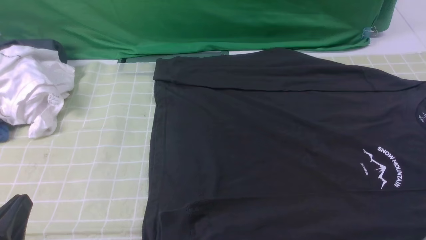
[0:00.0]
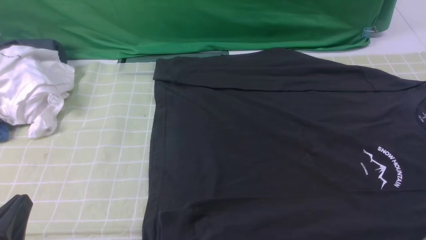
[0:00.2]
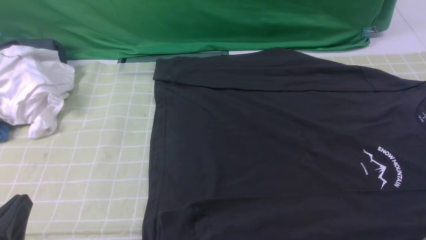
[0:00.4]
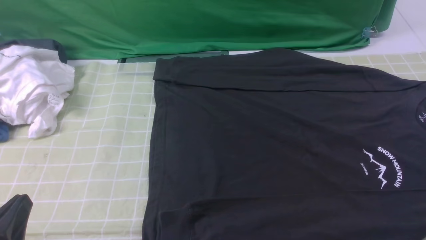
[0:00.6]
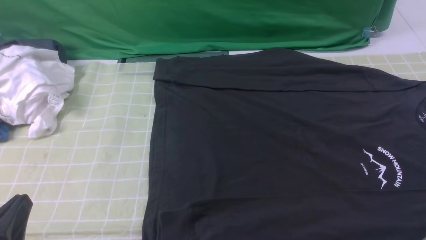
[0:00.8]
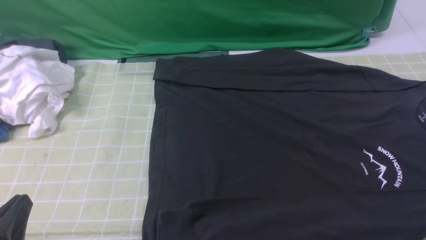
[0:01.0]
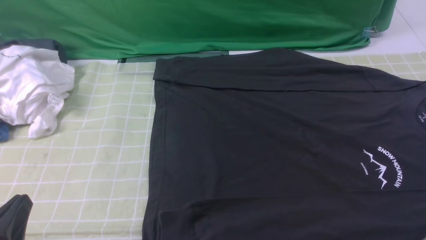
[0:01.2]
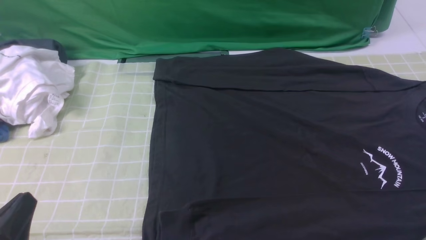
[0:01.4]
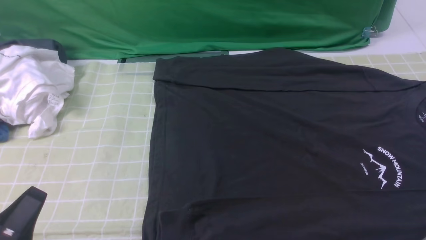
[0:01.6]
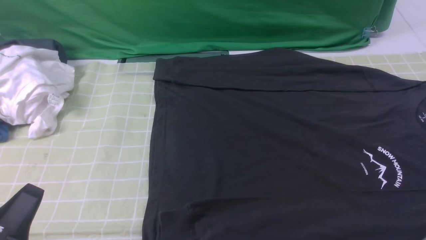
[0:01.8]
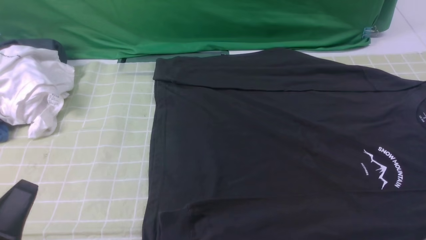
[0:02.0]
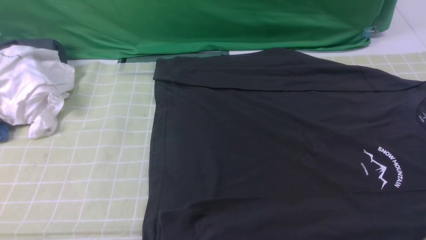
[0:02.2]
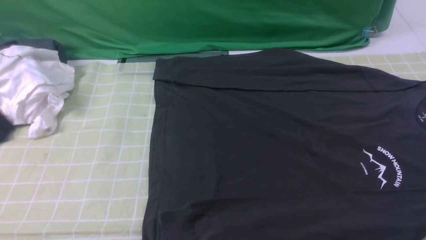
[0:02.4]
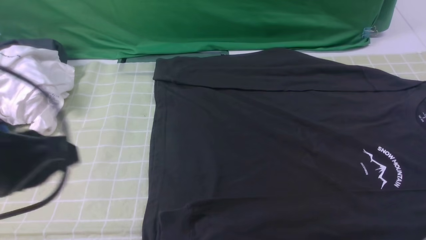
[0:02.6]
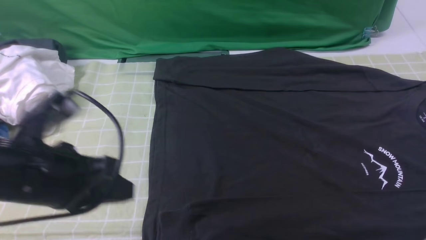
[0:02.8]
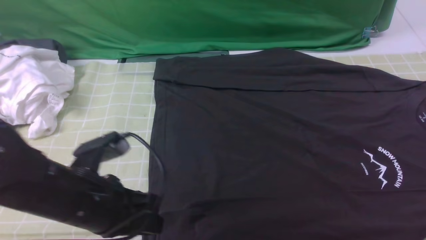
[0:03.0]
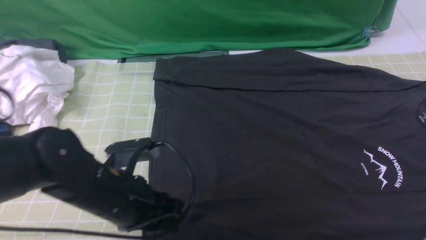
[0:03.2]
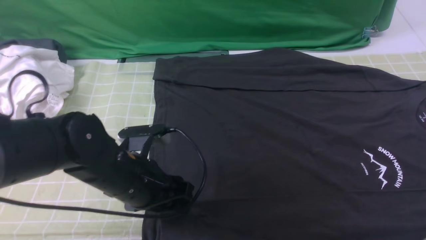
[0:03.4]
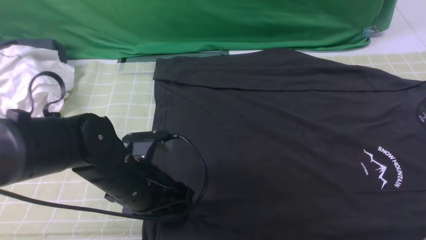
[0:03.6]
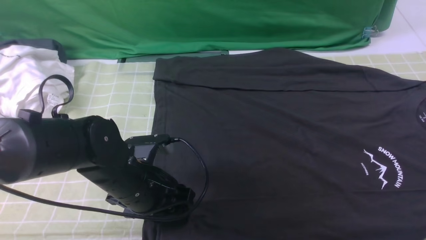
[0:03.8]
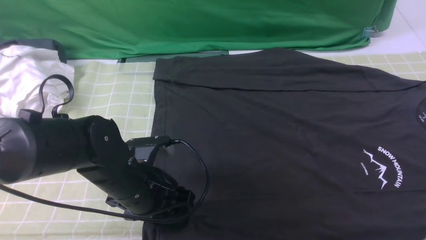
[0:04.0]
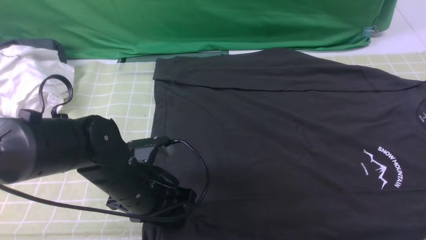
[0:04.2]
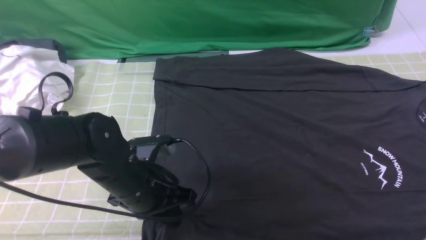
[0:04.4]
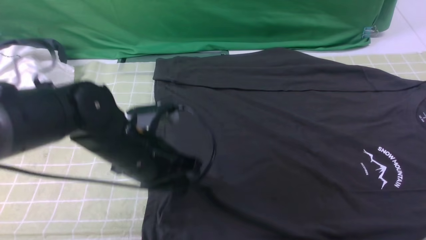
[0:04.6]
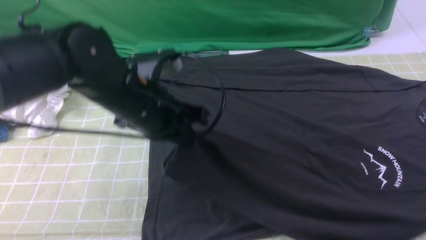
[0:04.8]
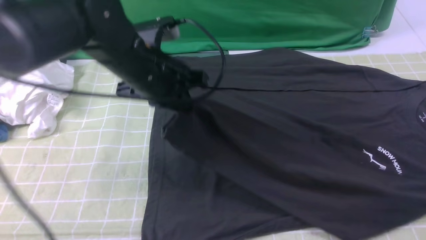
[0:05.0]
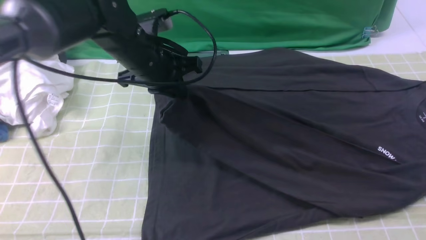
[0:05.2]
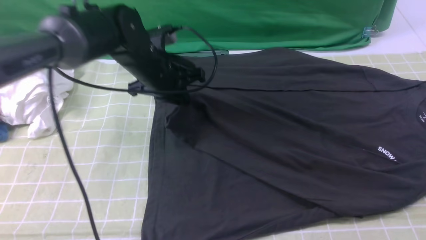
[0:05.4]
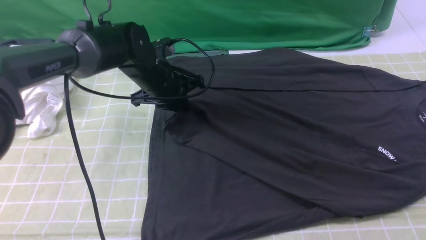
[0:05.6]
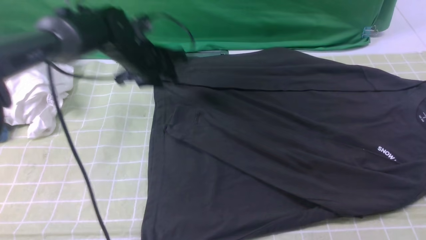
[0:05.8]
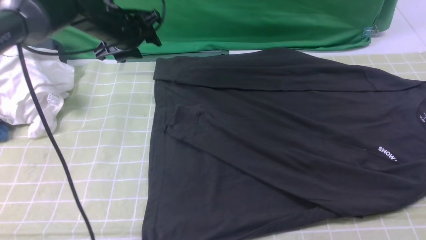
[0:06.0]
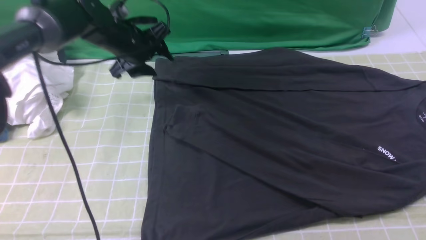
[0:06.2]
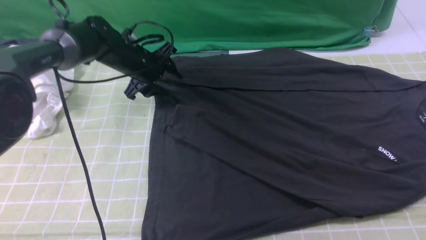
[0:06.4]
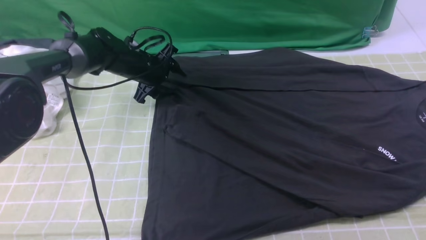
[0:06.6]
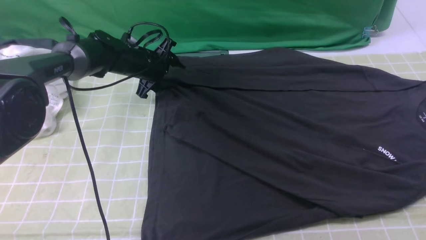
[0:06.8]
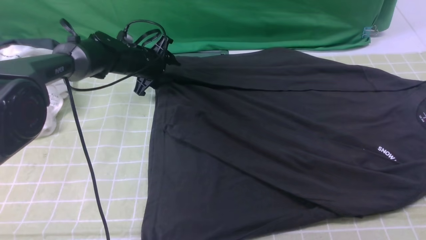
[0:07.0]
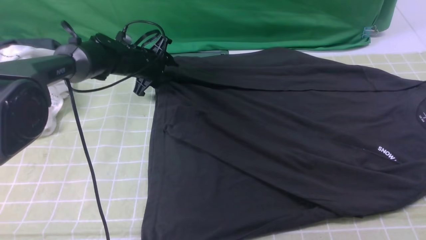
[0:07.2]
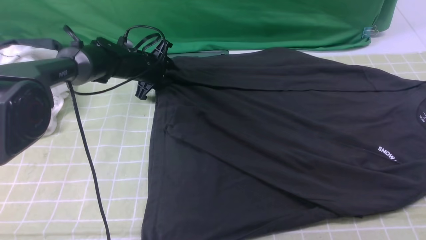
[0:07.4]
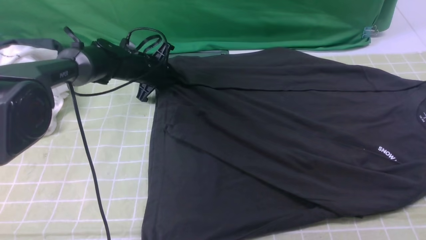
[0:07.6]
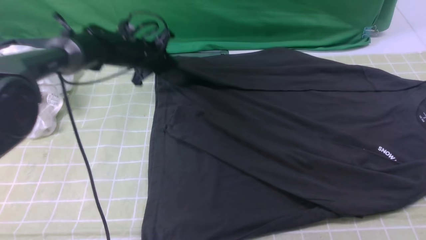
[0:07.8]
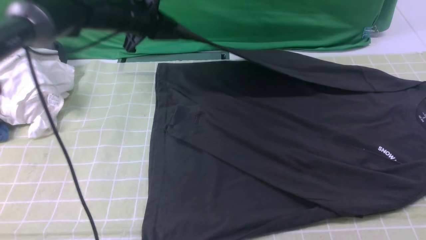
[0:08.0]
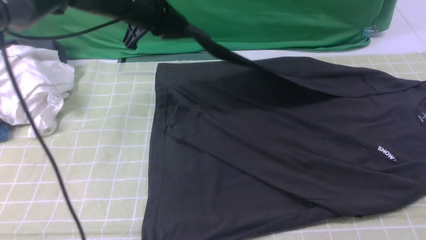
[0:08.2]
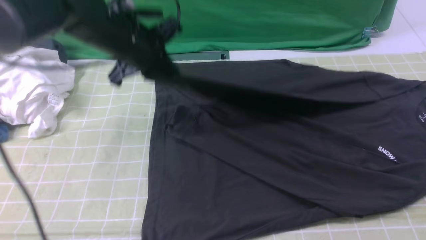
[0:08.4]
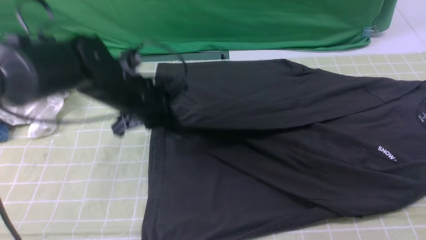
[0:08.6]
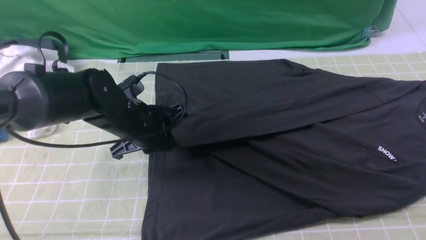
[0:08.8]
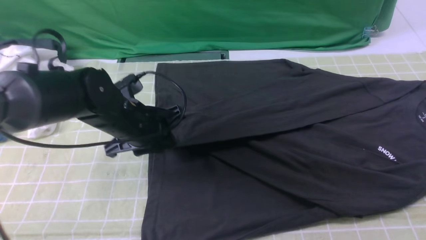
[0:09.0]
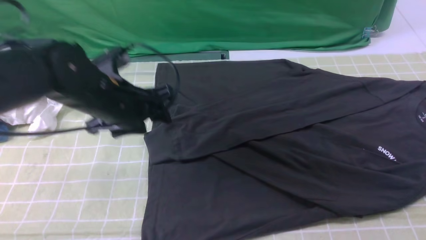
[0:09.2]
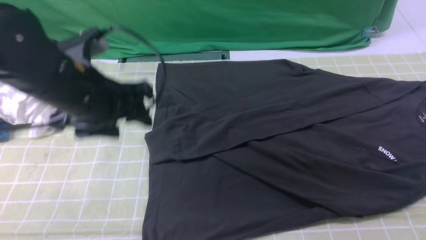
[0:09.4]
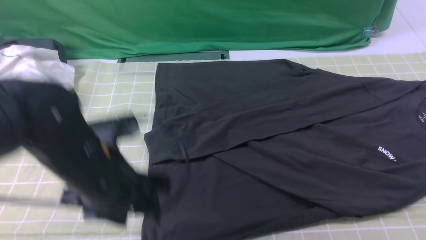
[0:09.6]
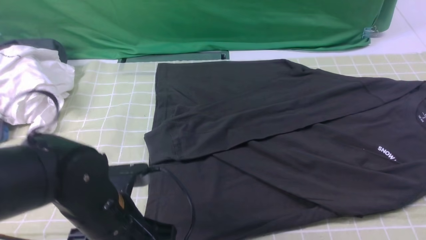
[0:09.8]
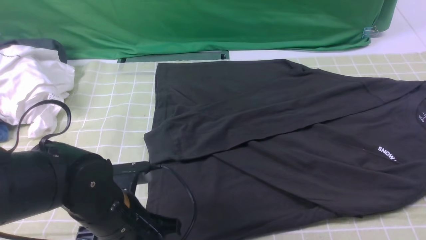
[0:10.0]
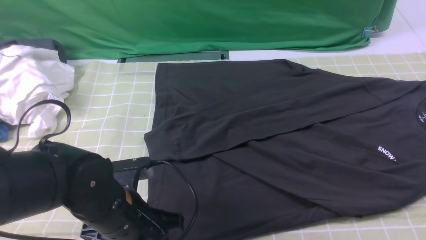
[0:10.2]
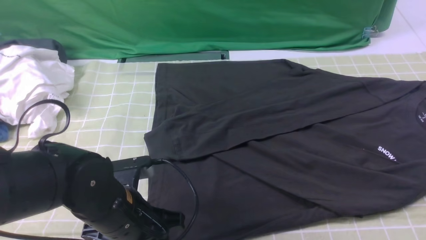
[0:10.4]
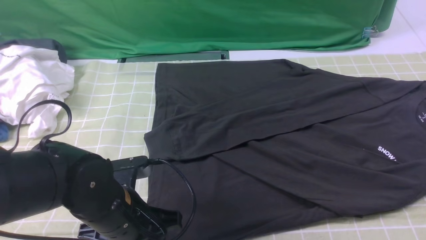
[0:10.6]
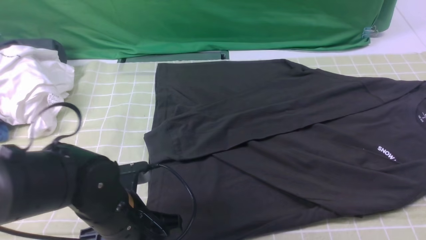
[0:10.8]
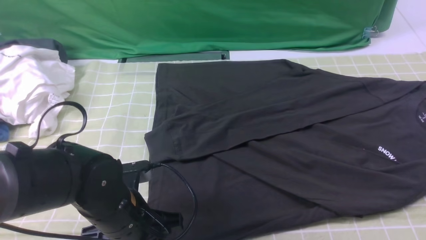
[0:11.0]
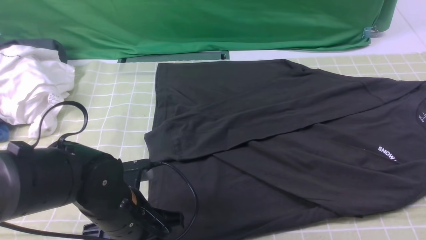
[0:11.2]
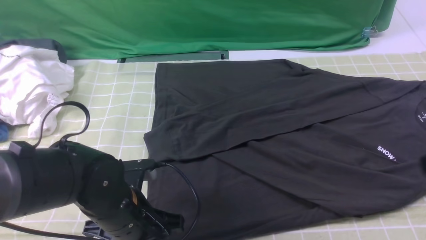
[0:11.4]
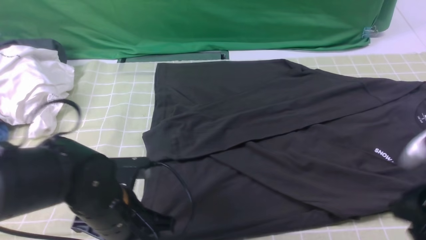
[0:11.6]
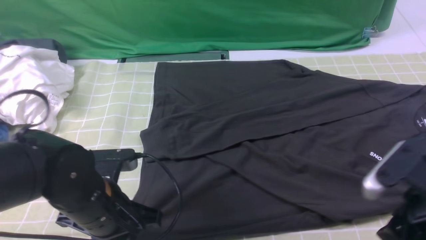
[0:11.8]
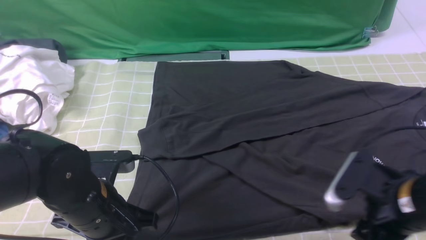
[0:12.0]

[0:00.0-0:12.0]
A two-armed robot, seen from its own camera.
Step, 0:00.0 to 0:04.2: use the left arm to clamp the cuff closest to it.
Step, 0:04.4 to 0:05.6: use the left arm to drag and place the cuff at the centered position on the left edge of the fabric.
Step, 0:05.8 to 0:07.6: use the left arm to clamp the cuff farthest from it.
Step, 0:07.8 to 0:09.0: use the left arm to drag and drop the cuff onto the cuff closest to the left arm.
0:01.6 to 0:03.0: The left gripper shifts roughly 15 cm forward and to the right; the right gripper travels upward and forward by some 15 cm, and closes its fingers.
0:03.0 to 0:04.4: The left gripper moves forward, approximately 5 cm, and opens, then closes again.
0:04.4 to 0:06.0: The left gripper goes approximately 25 cm forward, and opens its fingers.
0:06.0 to 0:07.6: The left gripper is displaced downward by roughly 10 cm, and closes up.
0:07.6 to 0:09.0: The left gripper goes about 20 cm backward.
0:09.0 to 0:10.4: The left gripper shifts some 15 cm backward.
0:10.4 to 0:12.0: The right gripper moves downward and to the left, about 15 cm. The left gripper closes.

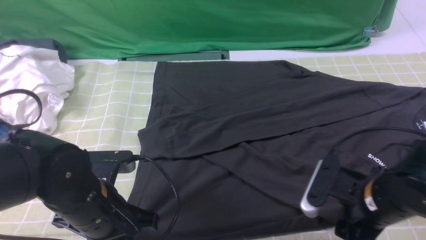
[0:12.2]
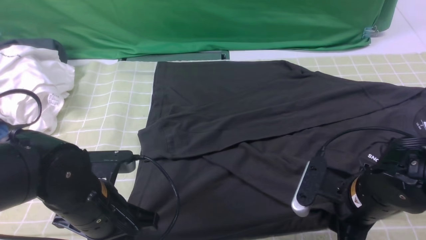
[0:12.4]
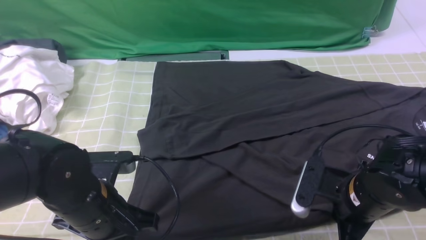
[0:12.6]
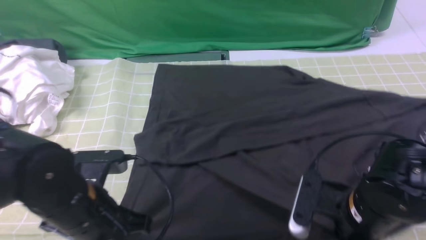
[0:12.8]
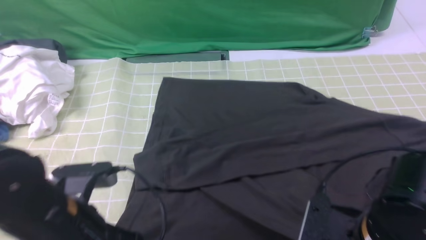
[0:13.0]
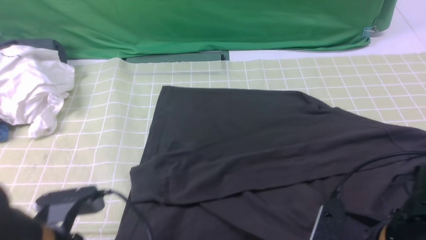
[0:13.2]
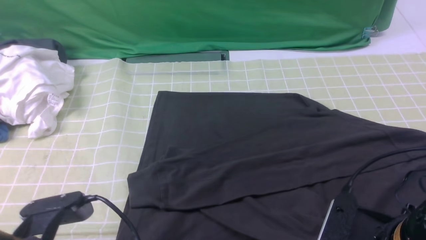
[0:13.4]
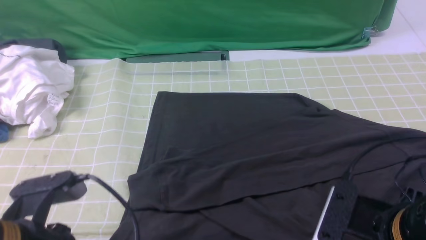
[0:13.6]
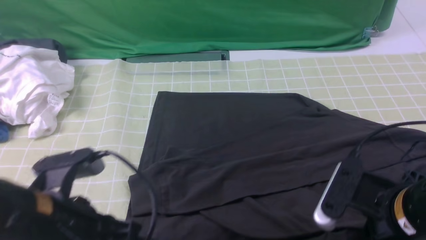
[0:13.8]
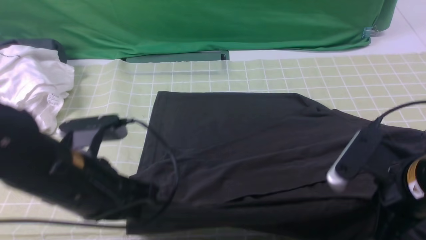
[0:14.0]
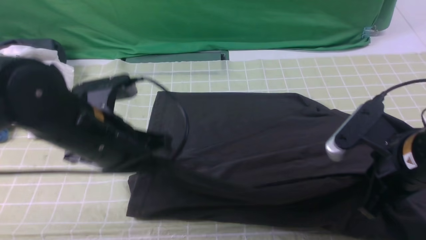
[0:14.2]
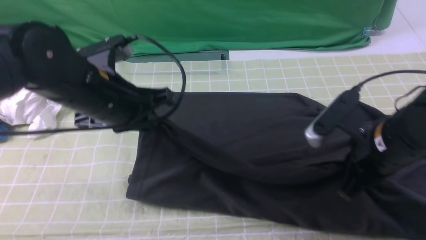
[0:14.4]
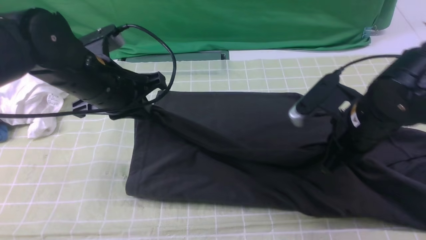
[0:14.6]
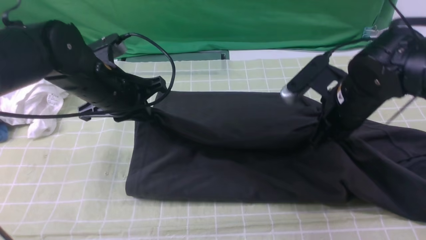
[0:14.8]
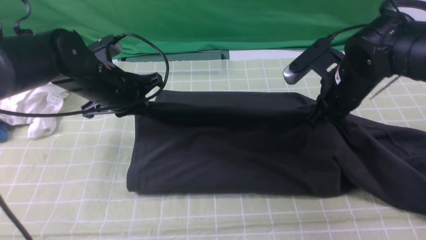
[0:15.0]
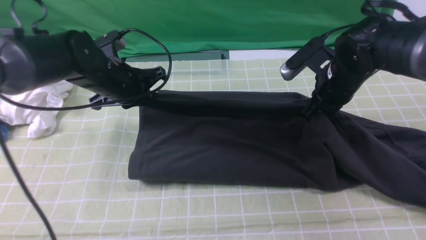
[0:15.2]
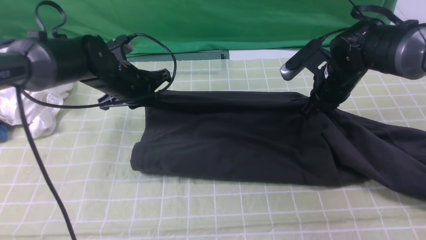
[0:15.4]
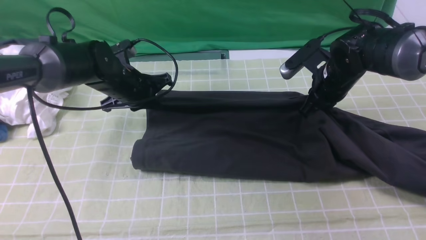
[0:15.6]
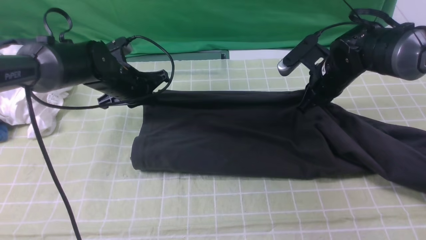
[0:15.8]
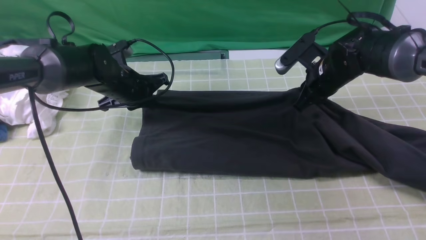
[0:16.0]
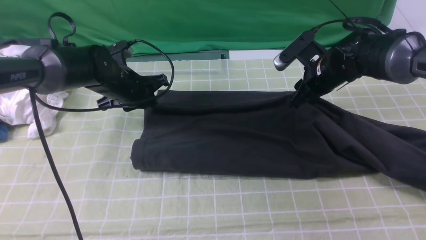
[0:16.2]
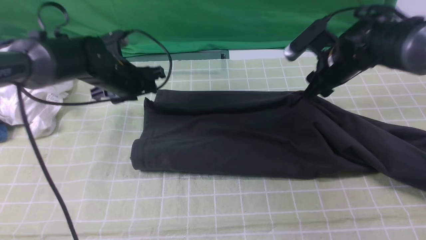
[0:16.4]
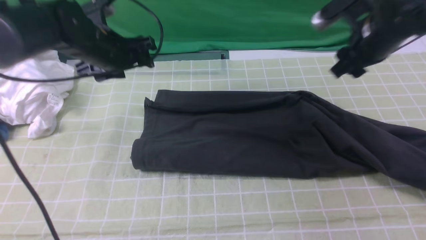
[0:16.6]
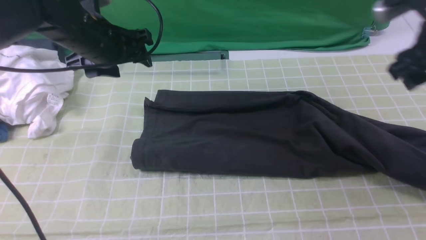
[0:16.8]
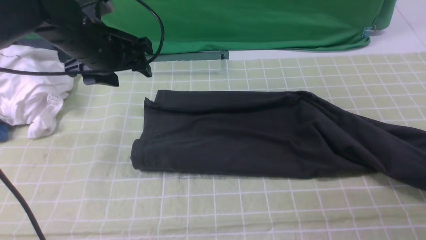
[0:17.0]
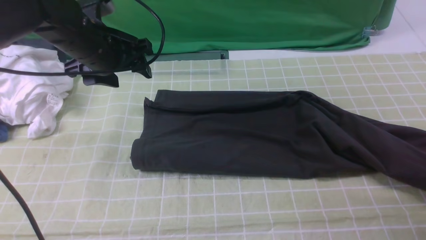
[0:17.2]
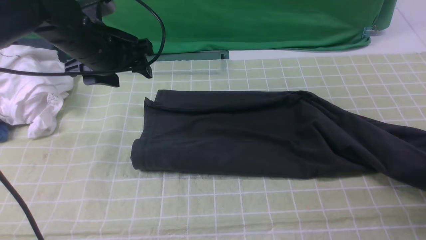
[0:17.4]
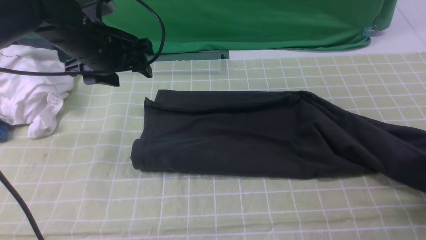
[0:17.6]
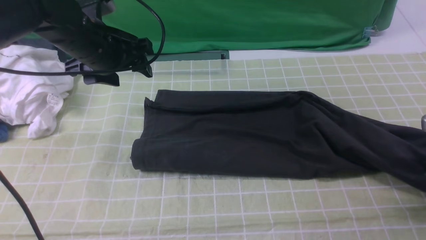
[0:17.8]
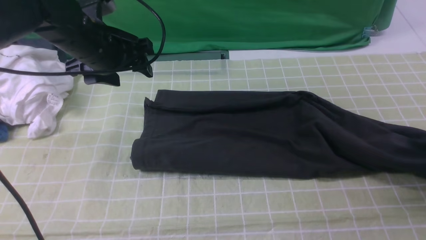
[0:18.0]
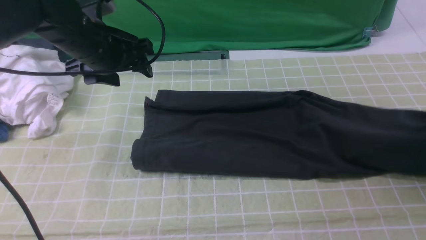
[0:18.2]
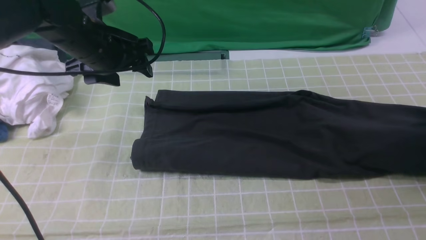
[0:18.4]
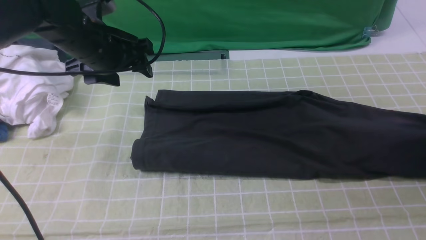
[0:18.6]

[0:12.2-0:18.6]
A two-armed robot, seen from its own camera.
Step, 0:12.8 to 0:16.2: use both arms to drag the lower edge of the fabric forward and fold it over the upper edge.
0:12.2 to 0:13.8: The two grippers go some 5 cm upward. The right gripper closes.
0:13.8 to 0:15.4: The grippers both shift forward by roughly 25 cm.
0:15.4 to 0:17.0: The left gripper shifts approximately 10 cm upward, and opens up. Meanwhile the right gripper heads to the right, backward and upward, covering approximately 20 cm, and opens.
0:17.0 to 0:18.6: The right gripper goes approximately 15 cm downward, to the right and forward, and closes.
